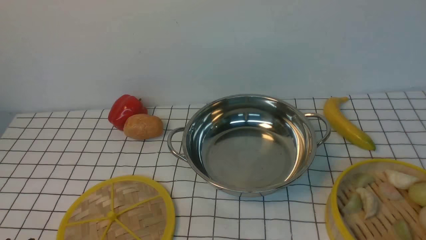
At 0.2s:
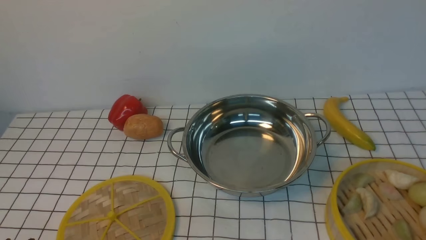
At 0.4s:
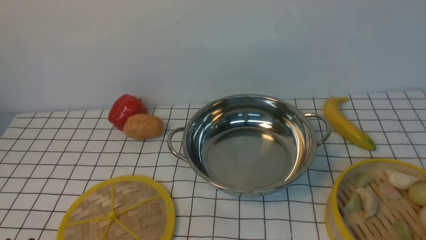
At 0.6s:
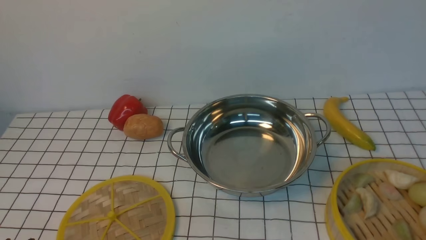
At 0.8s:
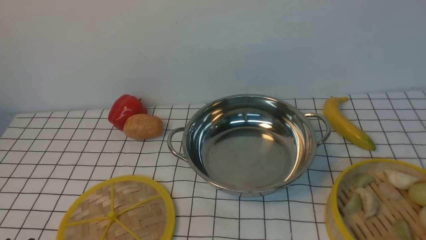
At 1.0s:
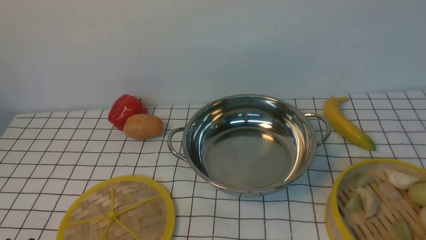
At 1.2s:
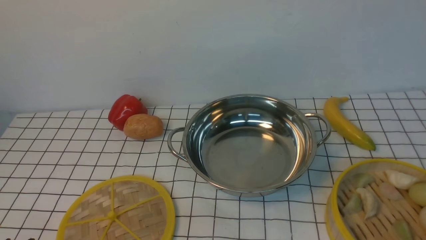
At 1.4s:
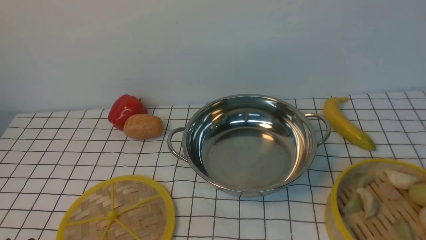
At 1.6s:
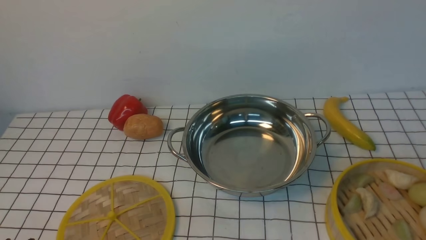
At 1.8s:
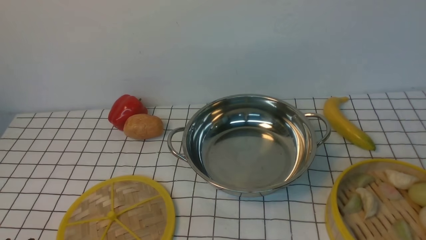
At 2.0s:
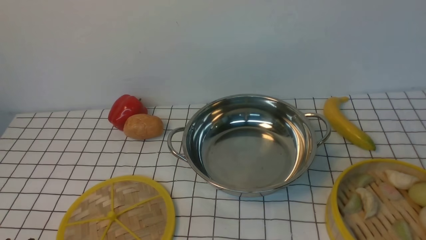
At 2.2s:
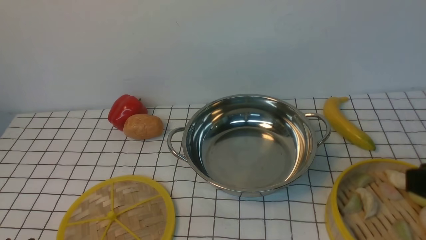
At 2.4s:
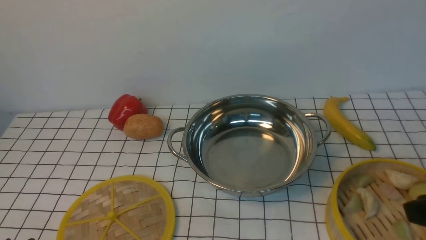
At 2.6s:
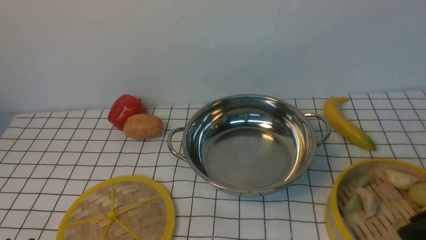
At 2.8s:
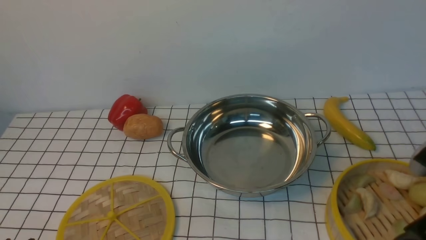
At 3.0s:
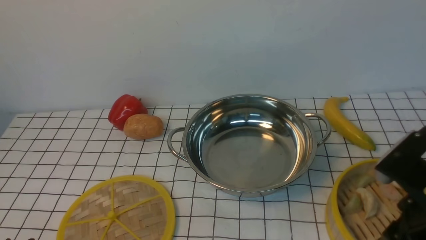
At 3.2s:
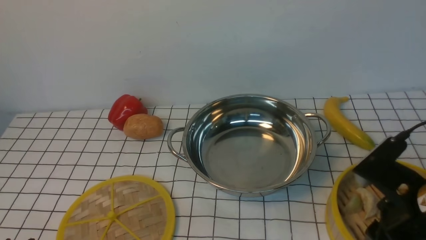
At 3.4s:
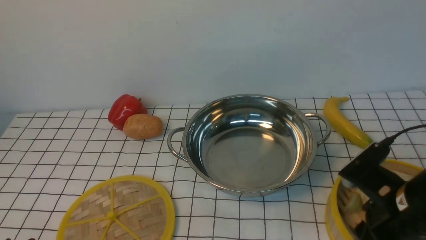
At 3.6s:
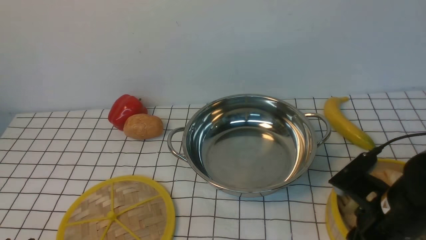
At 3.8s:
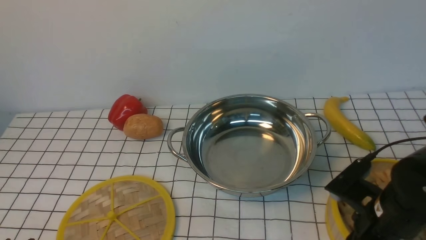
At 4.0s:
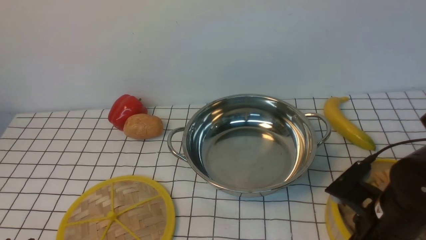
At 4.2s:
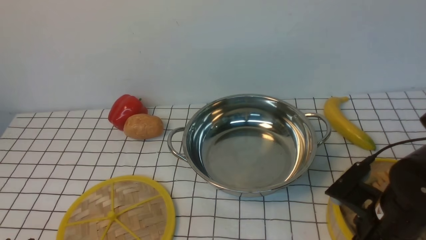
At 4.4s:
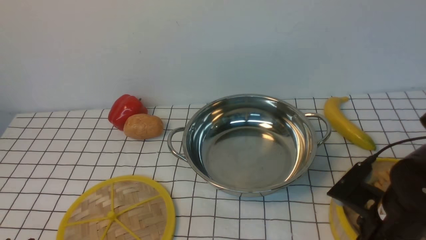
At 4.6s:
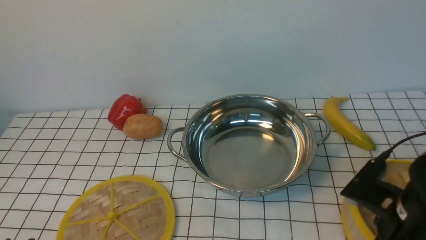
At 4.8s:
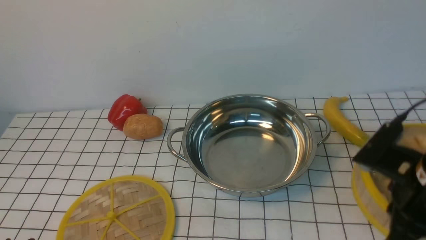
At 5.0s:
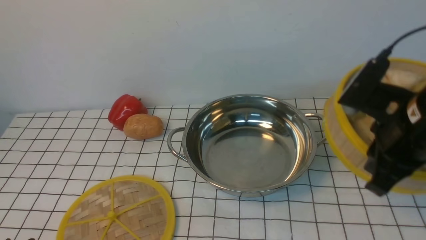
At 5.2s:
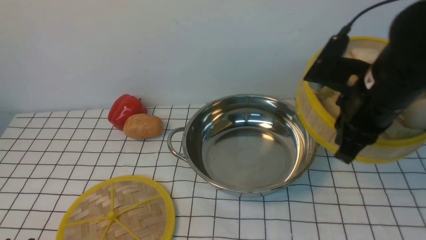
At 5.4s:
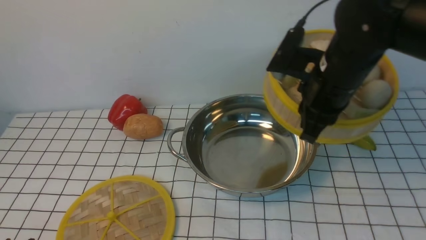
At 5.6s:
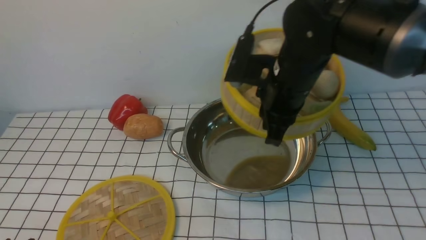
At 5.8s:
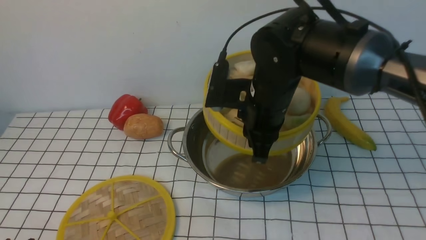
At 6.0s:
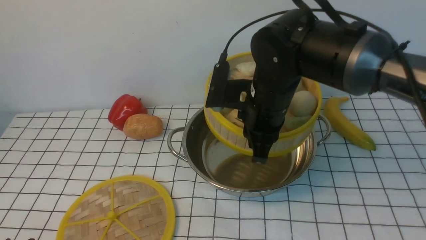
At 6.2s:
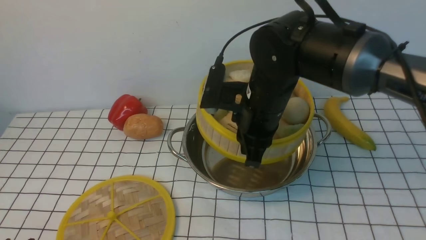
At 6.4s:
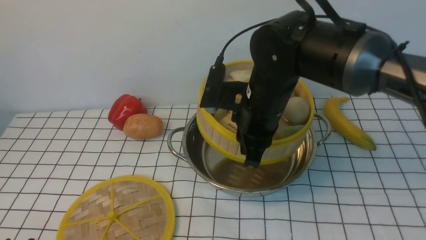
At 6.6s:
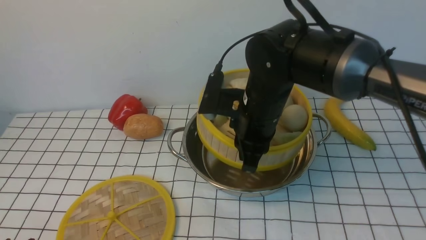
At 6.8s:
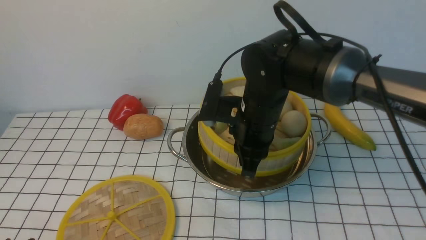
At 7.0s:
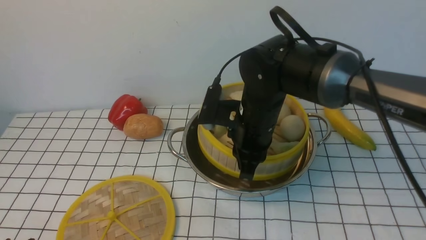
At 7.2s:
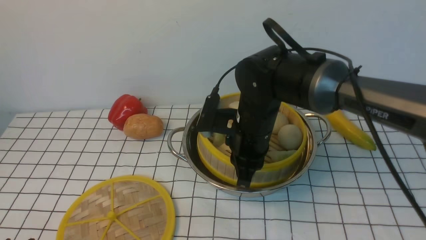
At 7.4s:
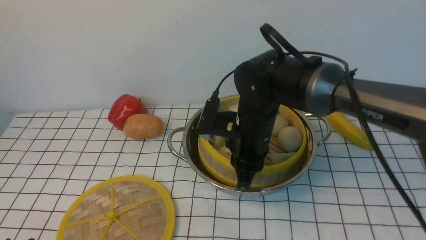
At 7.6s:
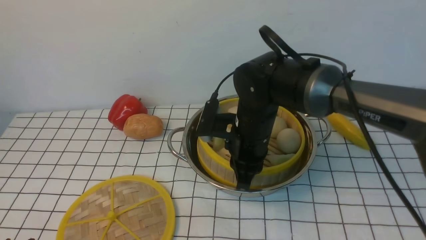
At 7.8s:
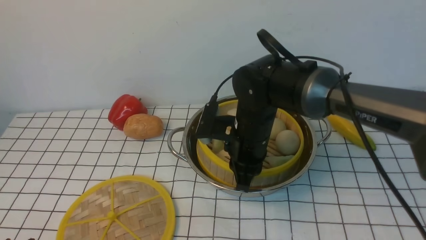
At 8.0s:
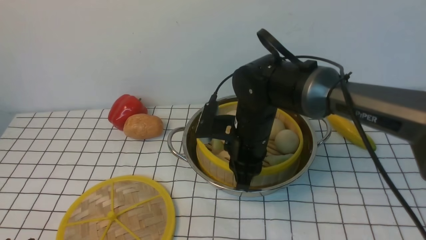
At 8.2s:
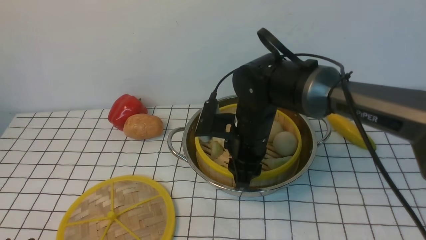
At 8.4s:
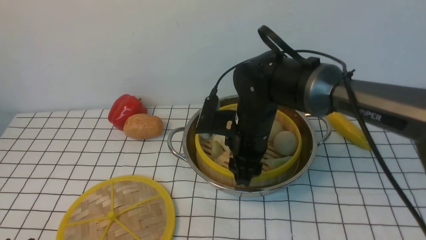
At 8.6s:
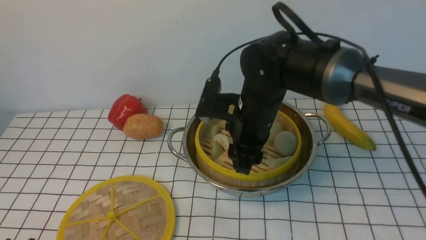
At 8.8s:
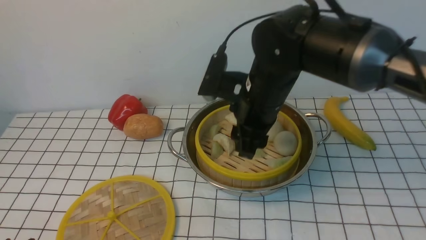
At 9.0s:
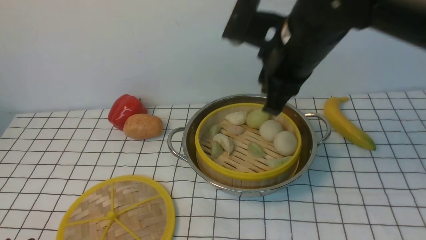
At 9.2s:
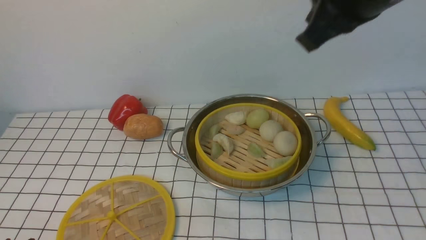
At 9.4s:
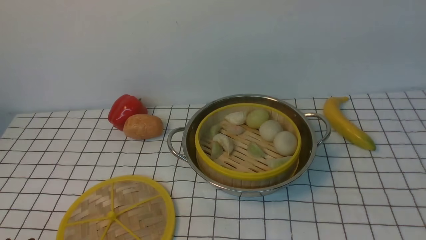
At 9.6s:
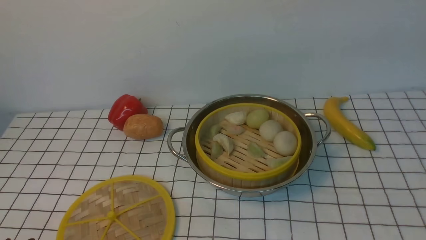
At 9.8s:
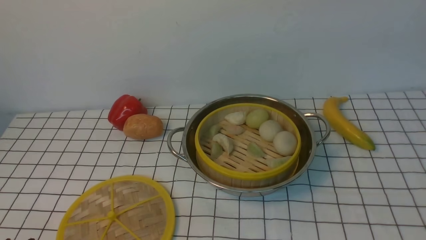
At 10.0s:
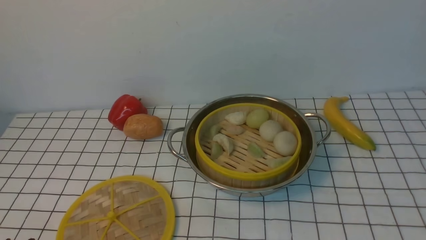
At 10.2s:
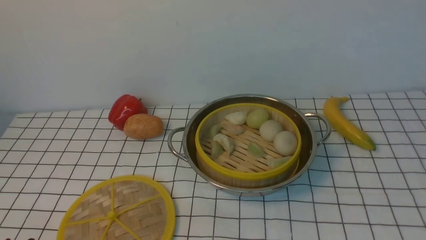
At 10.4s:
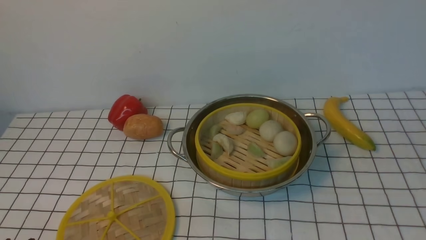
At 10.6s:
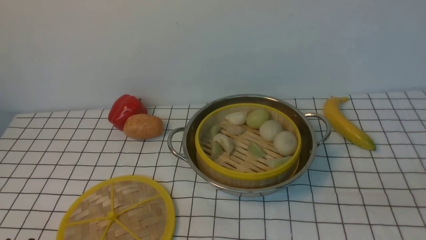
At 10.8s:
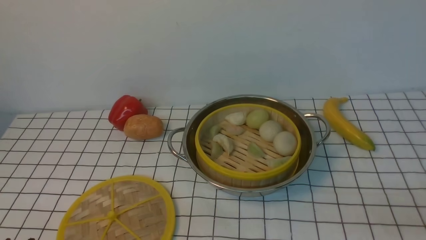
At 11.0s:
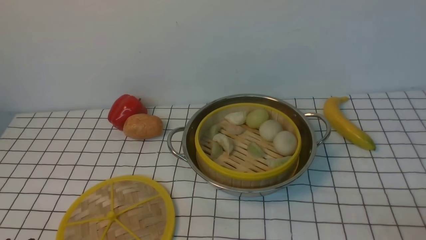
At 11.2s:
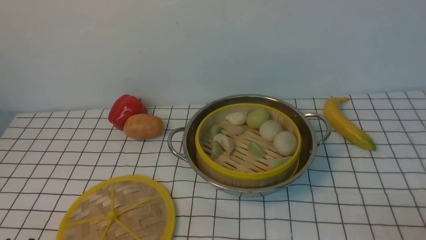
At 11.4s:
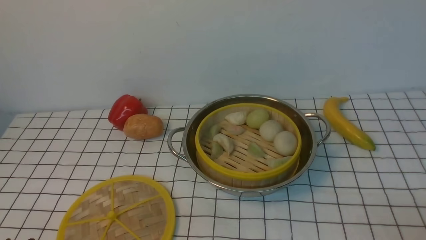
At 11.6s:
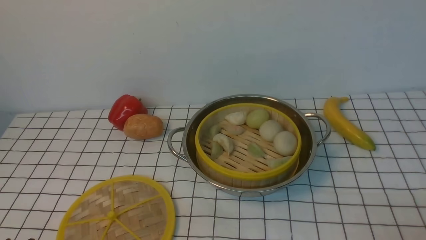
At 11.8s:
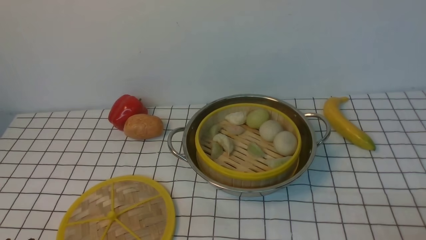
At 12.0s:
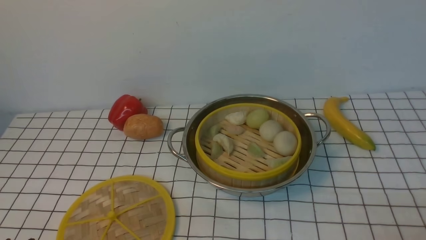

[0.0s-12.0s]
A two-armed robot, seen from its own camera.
Task of the whole recording: place the steamer in the pot on the white tablecloth, and put the lid on the steamer.
Step, 0.0s to 4.6s: use the right arm to lift the steamer closest to it.
Step, 4.8s to 8.6s: use the right arm to put the steamer into the iron steamer pot in the middle.
1.6s to 3.0s: The right gripper goes about 15 cm forward, to the left and downward.
3.0s to 4.4s: The right gripper goes some 5 cm downward, and closes up.
4.4s to 6.0s: The right gripper heads to the left, forward and upward, covering about 20 cm.
6.0s to 7.6s: The right gripper shifts roughly 5 cm downward.
7.6s to 9.0s: The right gripper goes about 20 cm upward, and opens, then closes once more.
9.0s to 10.4s: The right gripper moves to the right and backward, some 30 cm, and closes up.

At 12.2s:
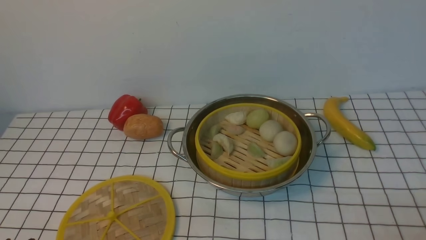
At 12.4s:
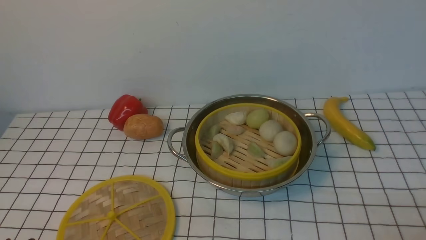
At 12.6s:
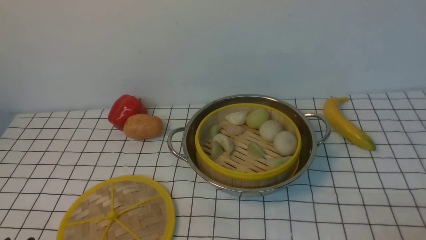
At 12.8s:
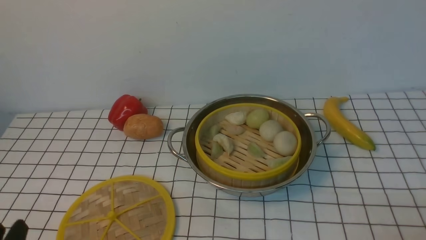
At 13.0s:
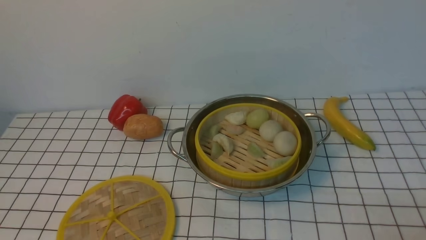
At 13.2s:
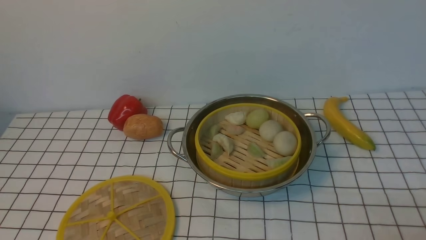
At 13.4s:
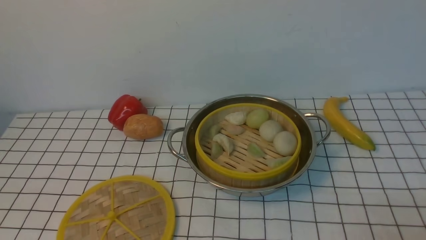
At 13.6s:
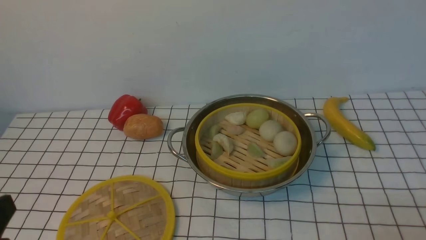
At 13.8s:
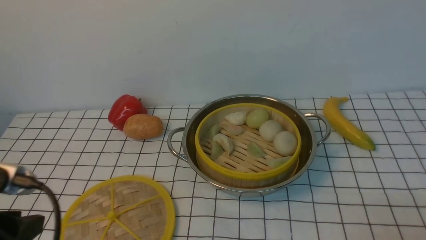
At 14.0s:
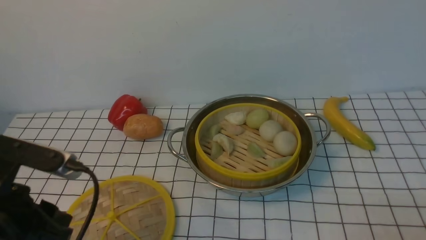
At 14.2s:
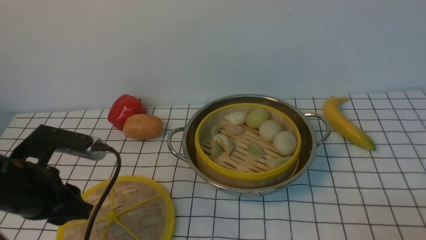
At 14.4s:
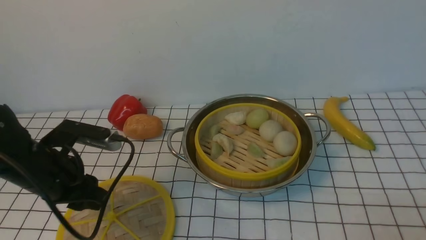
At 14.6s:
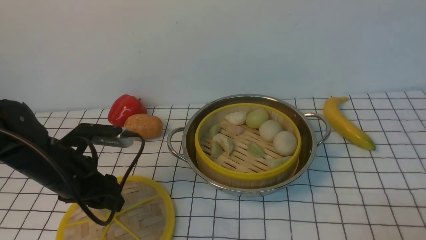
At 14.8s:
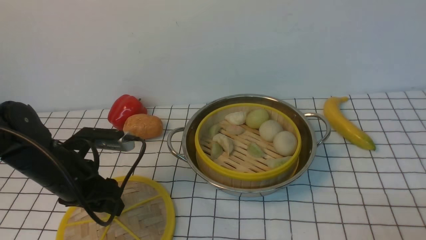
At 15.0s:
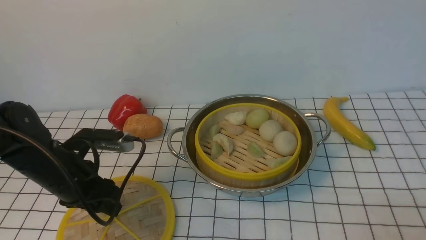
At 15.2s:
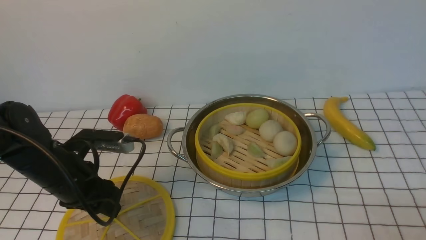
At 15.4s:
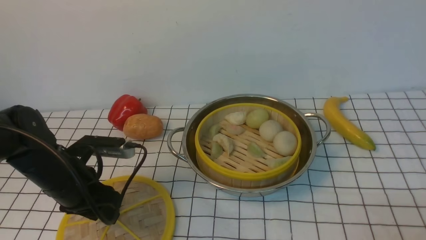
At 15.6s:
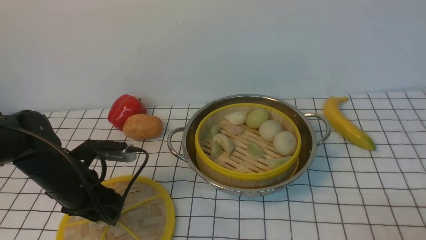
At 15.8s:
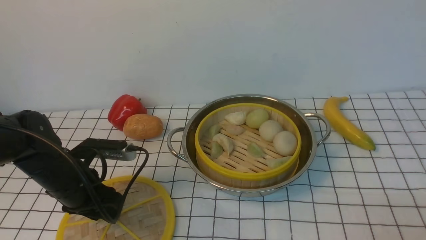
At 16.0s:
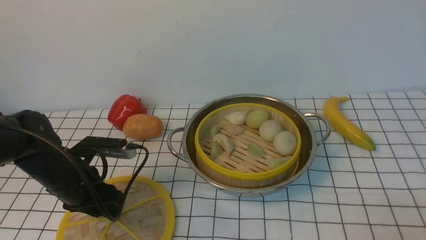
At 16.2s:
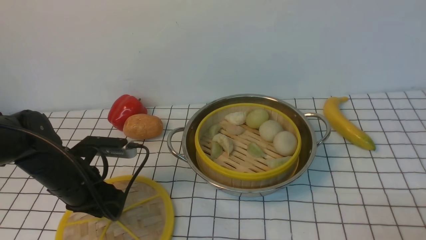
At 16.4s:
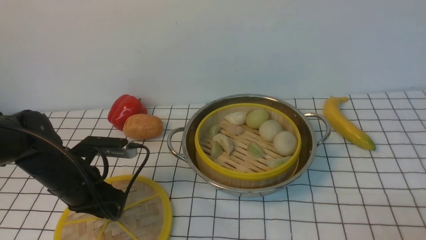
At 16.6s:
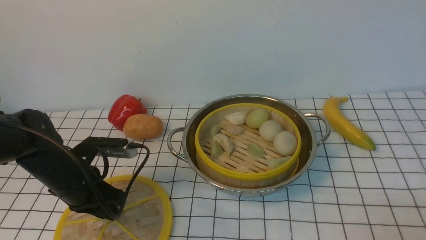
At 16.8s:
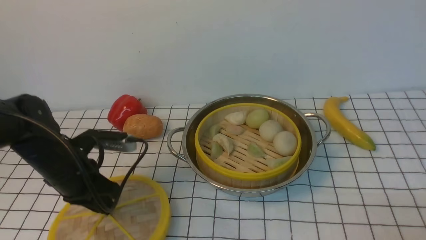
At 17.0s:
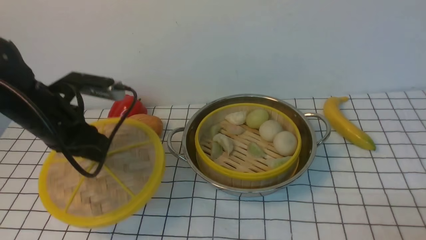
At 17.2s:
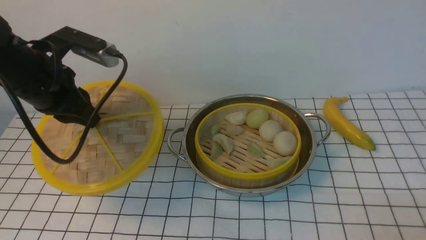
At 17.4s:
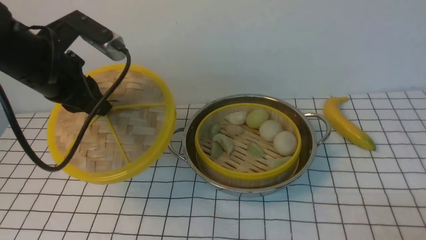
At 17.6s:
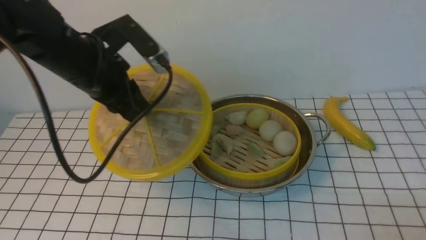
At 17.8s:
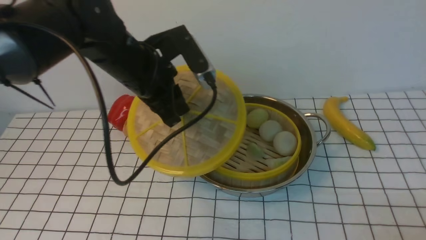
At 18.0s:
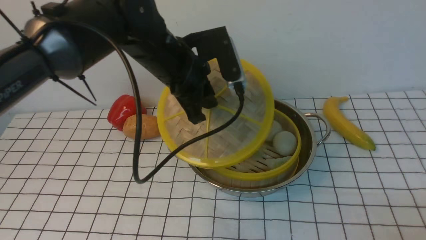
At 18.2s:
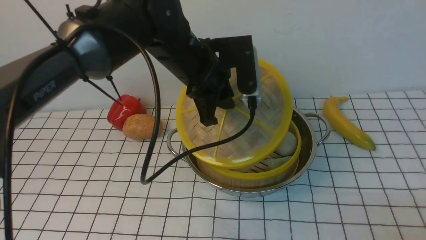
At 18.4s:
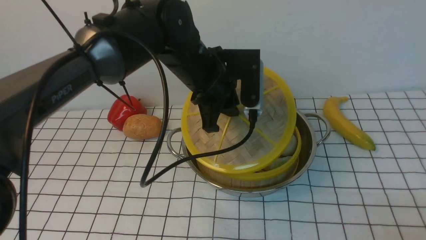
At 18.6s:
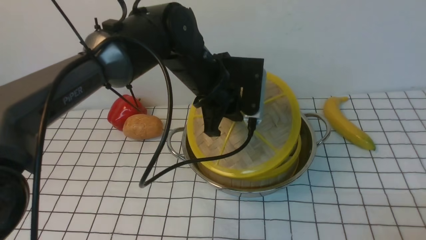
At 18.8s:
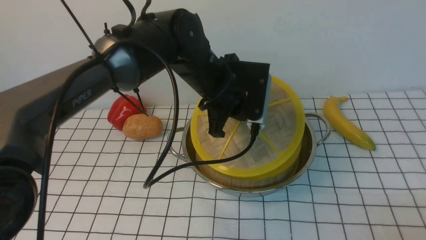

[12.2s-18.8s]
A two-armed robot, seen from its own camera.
Task of the whole recording: place the steamer in the pot on the white tablecloth, and put the lid on the steamer.
Step, 12.2s to 16.8s: use the left arm to lift the lid of the steamer.
12.2s to 13.8s: The left gripper is displaced upward and forward by about 15 cm.
13.8s to 15.4s: The left gripper goes some 20 cm forward and downward.
15.4s to 17.2s: The left gripper is displaced upward by some 15 cm, and closes its fingers.
17.2s to 18.8s: The left gripper goes about 20 cm to the right.
